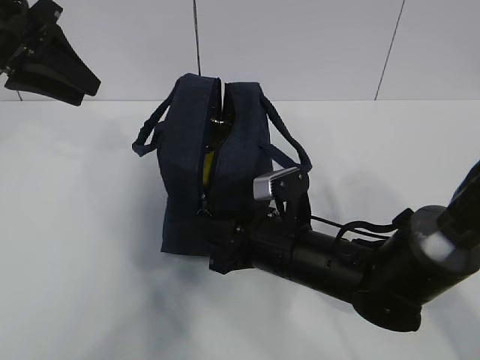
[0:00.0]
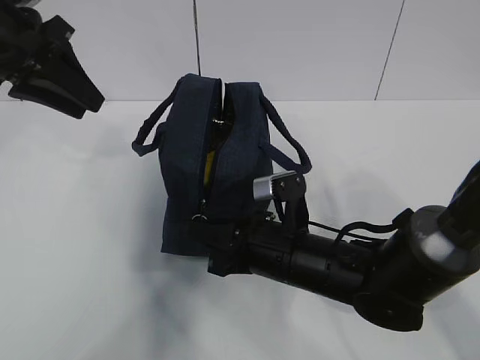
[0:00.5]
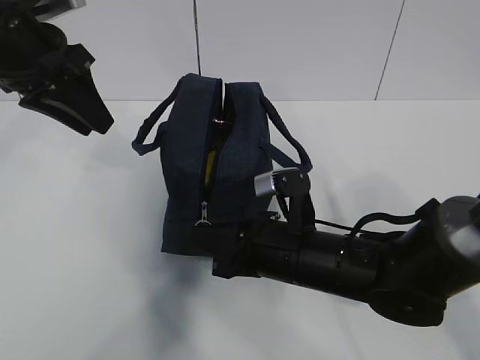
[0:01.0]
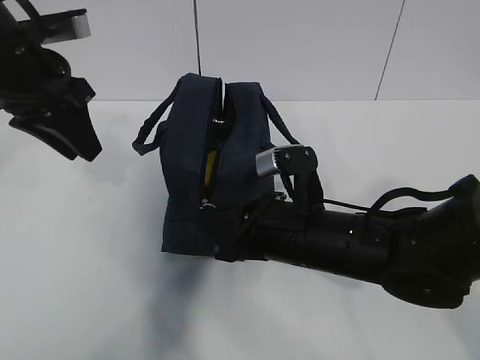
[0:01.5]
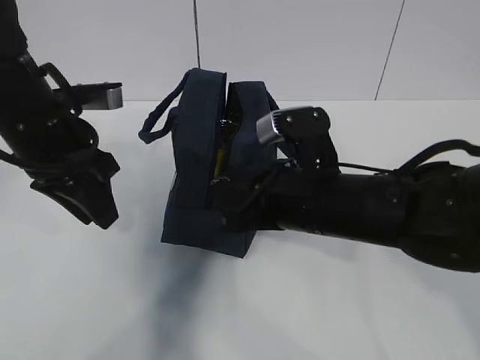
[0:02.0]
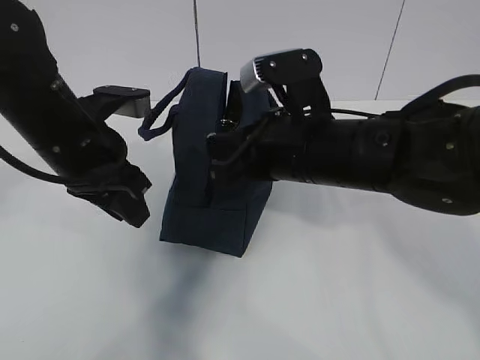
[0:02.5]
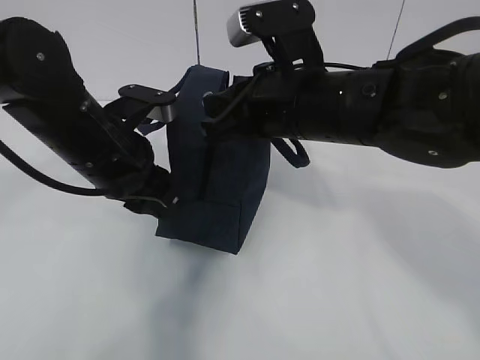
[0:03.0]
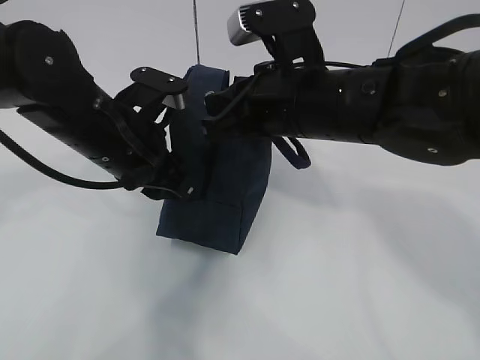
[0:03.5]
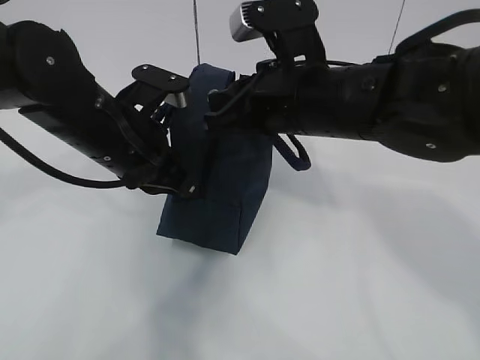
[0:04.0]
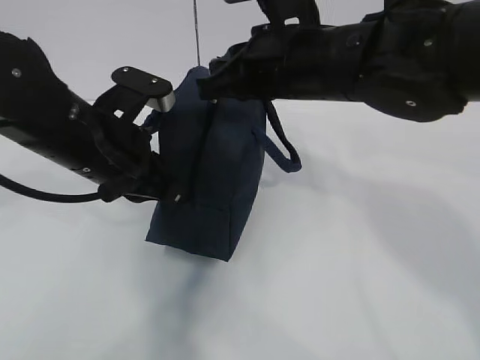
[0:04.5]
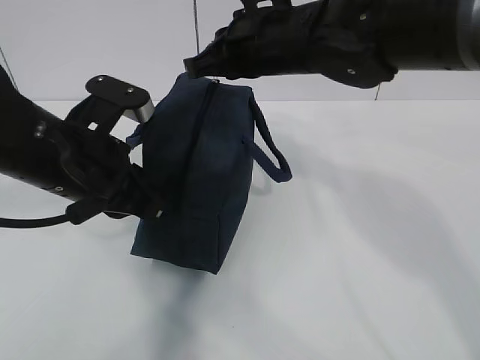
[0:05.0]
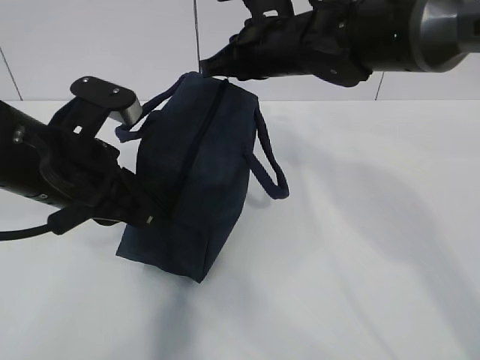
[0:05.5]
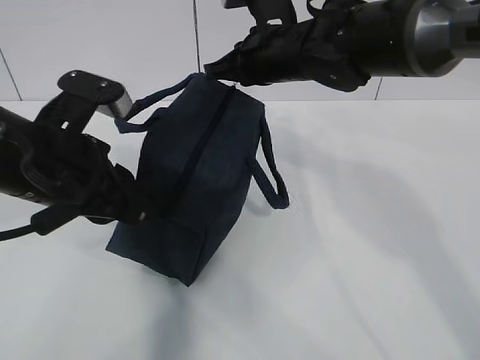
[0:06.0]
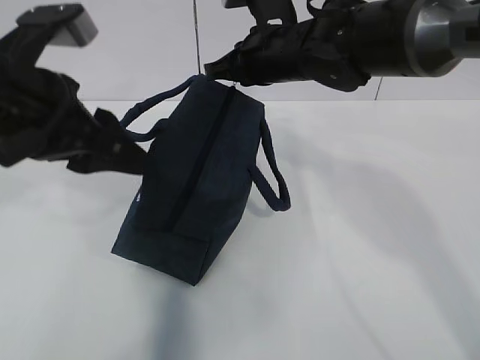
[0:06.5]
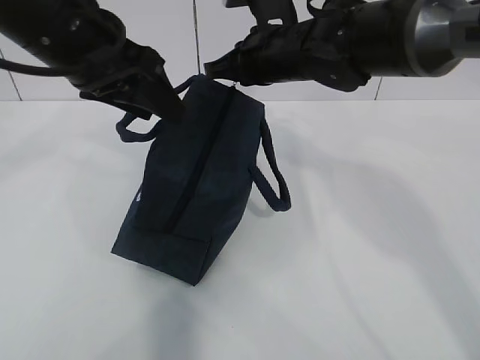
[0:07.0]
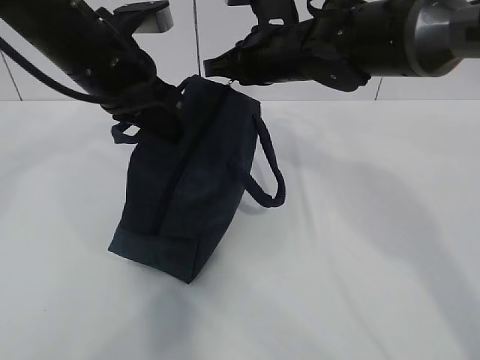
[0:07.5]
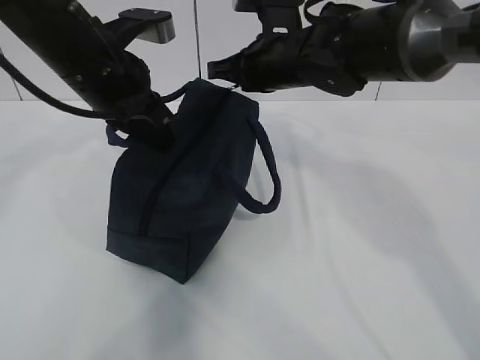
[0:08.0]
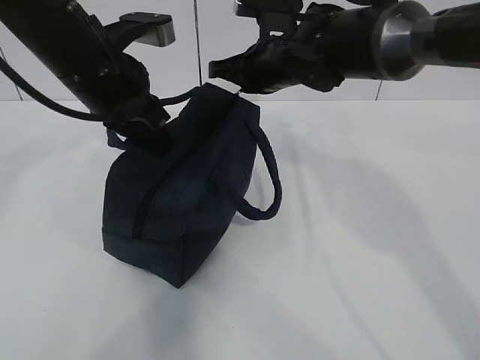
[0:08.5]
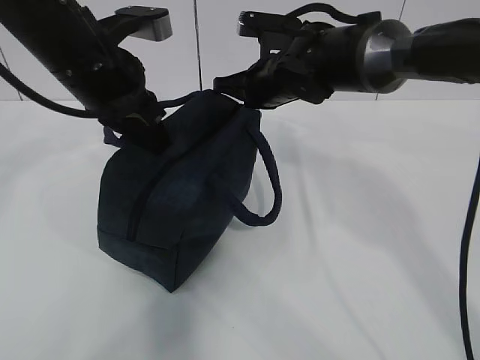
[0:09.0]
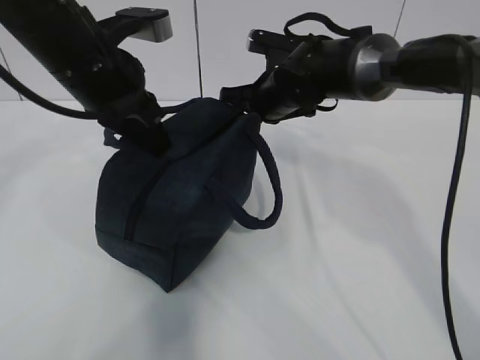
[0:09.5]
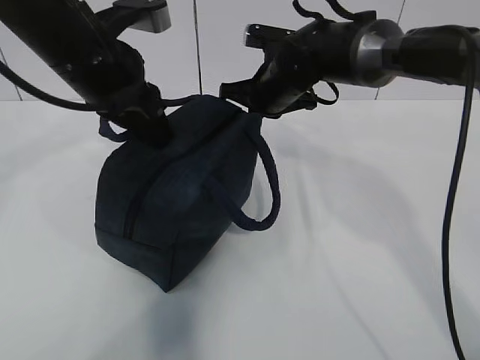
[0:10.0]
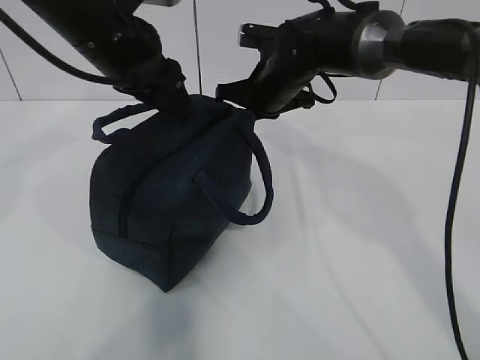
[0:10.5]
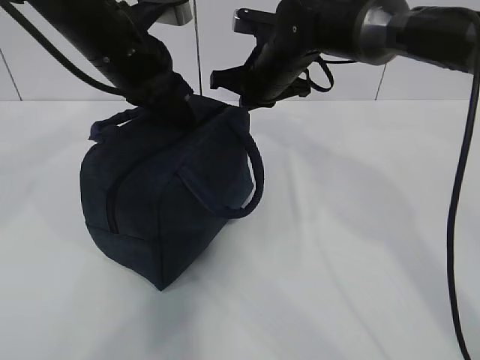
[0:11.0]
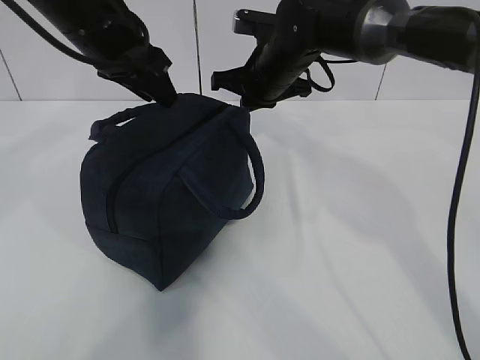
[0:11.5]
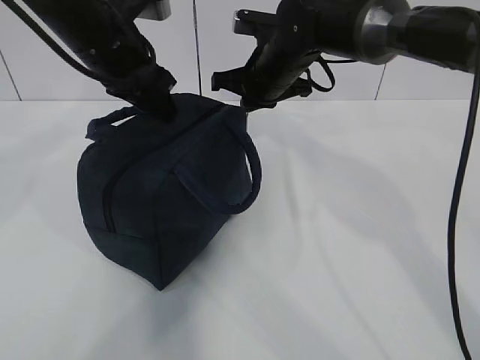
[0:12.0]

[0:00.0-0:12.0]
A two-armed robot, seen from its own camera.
0:00.0 to 0:02.0: The left gripper shifts roughly 10 cm downward, to the right and backward, while the right gripper shifts roughly 10 cm upward.
0:02.0 to 0:04.0: The right gripper travels upward by about 10 cm. The left gripper travels to the right by approximately 5 cm, and closes.
0:04.0 to 0:06.0: The left gripper moves backward, roughly 5 cm, while the right gripper moves forward, some 10 cm.
0:06.0 to 0:08.0: The left gripper heads forward, covering approximately 10 cm, and opens, then closes again.
0:08.0 to 0:10.0: The right gripper travels downward by some 5 cm.
0:10.0 to 0:12.0: The left gripper travels forward by approximately 5 cm.

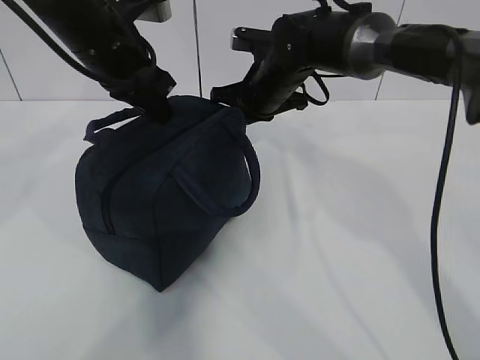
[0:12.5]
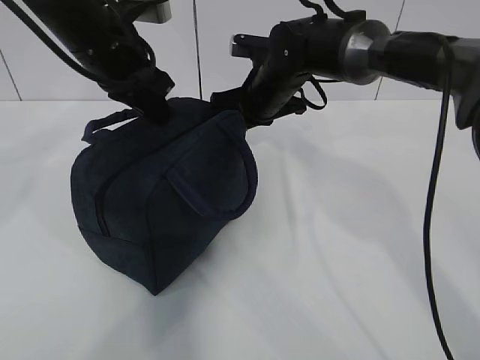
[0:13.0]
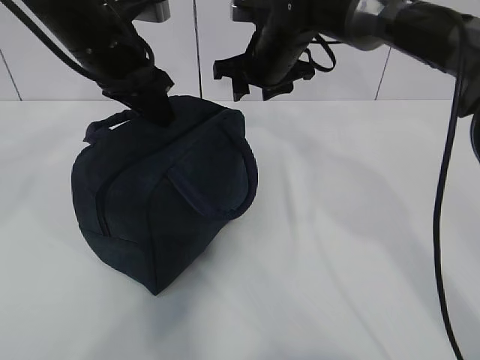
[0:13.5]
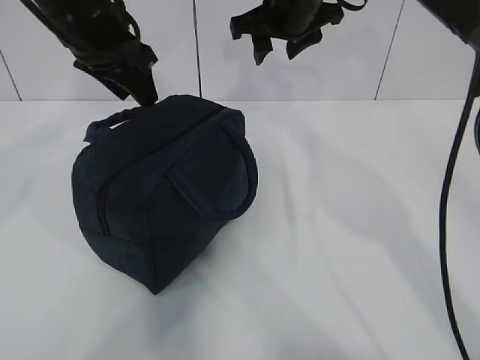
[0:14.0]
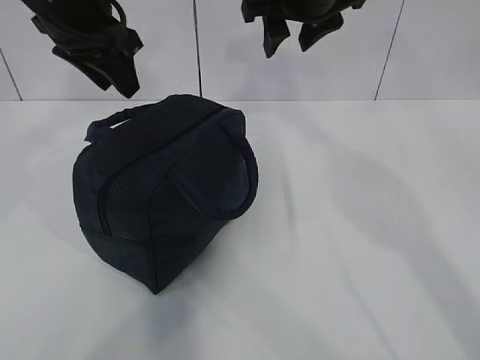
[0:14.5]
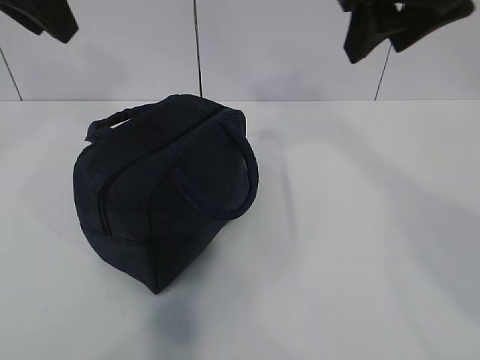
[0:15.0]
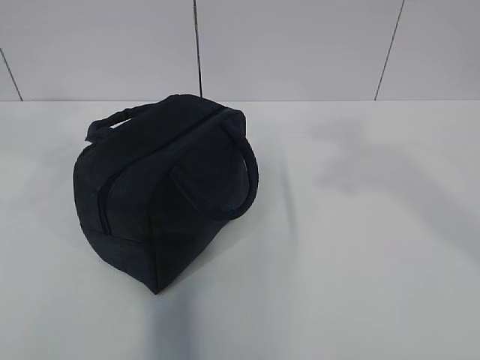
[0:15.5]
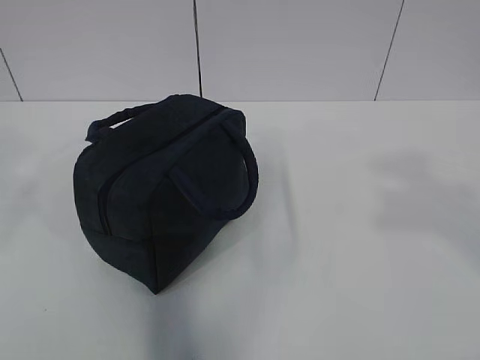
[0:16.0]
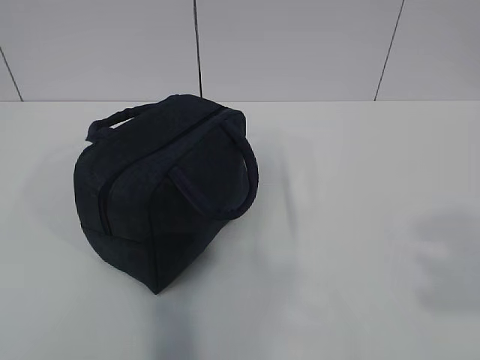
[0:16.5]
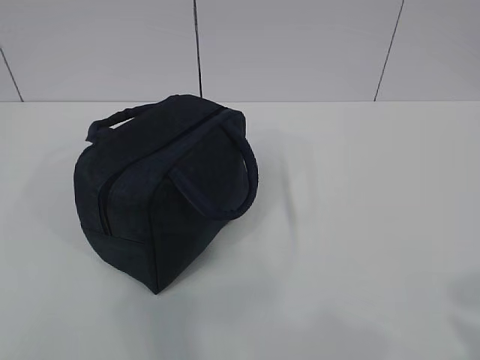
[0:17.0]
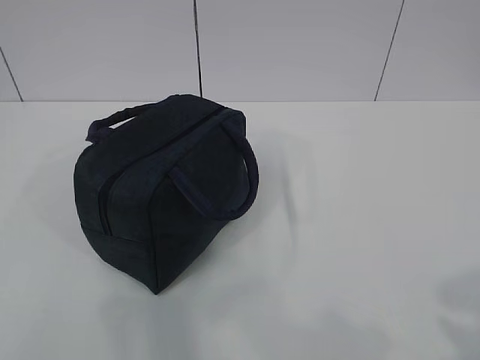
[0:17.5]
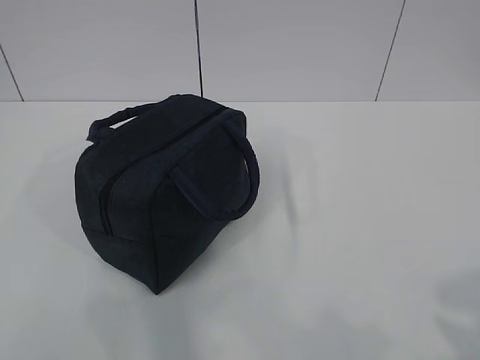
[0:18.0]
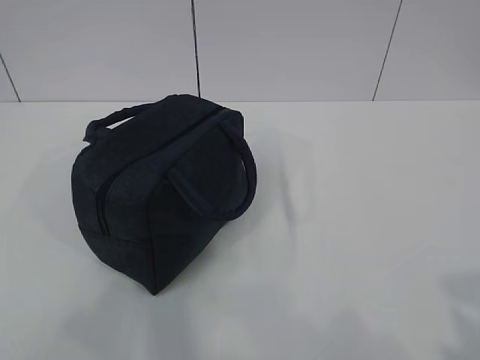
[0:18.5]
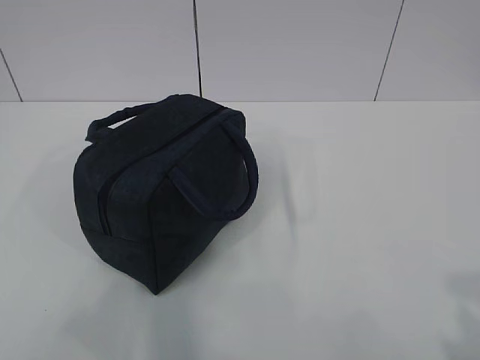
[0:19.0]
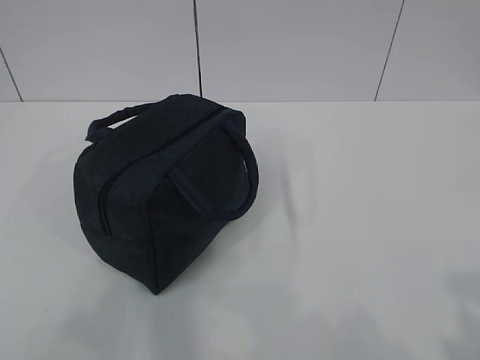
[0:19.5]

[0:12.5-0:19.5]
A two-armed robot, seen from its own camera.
0:12.5 to 0:14.5: The left gripper shifts about 5 cm upward, and opens up. The right gripper travels upward by some 15 cm, and opens up.
0:14.5 to 0:16.0: The left gripper moves backward, approximately 30 cm; the right gripper moves backward and to the right, roughly 40 cm.
0:16.0 to 0:17.5: The left gripper shifts about 20 cm downward and backward; the right gripper is displaced downward by approximately 15 cm.
